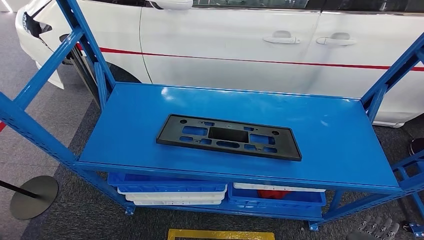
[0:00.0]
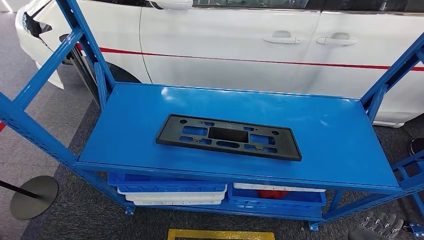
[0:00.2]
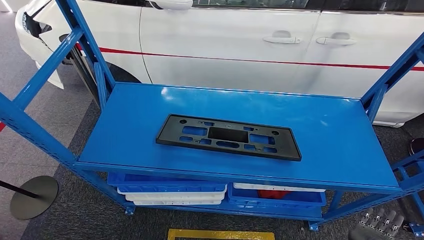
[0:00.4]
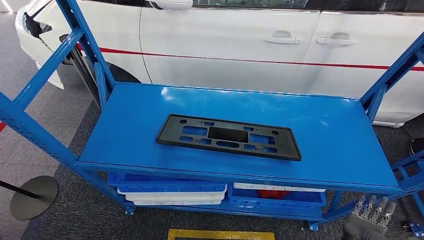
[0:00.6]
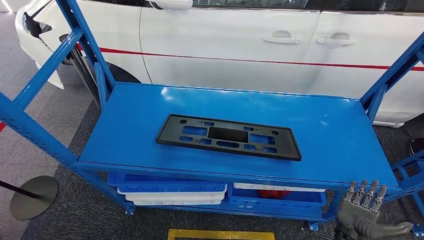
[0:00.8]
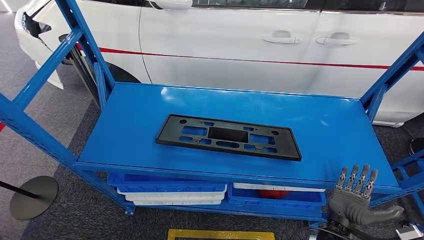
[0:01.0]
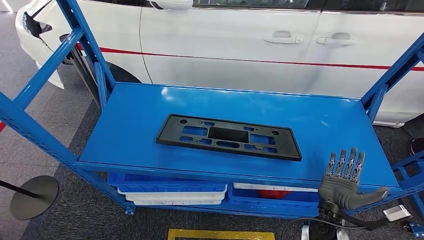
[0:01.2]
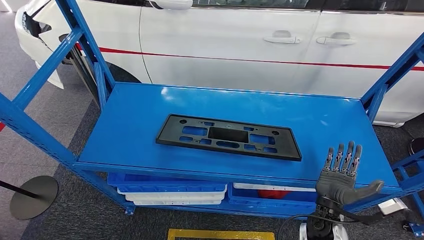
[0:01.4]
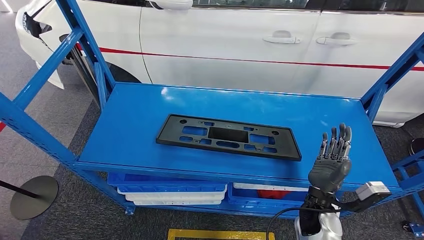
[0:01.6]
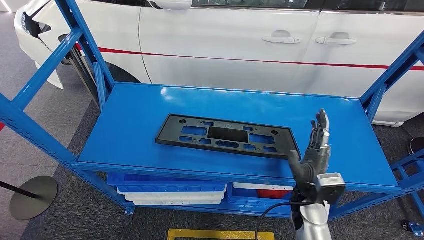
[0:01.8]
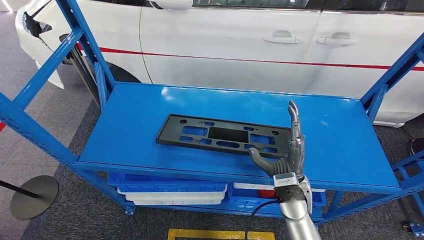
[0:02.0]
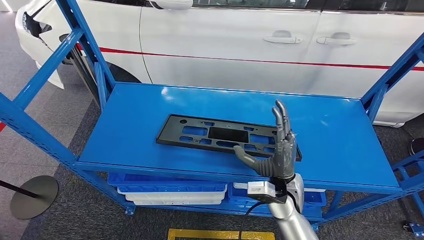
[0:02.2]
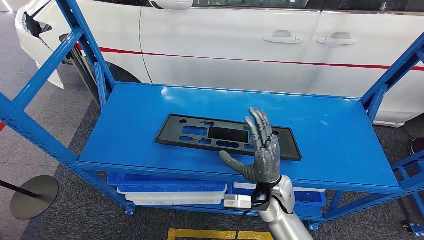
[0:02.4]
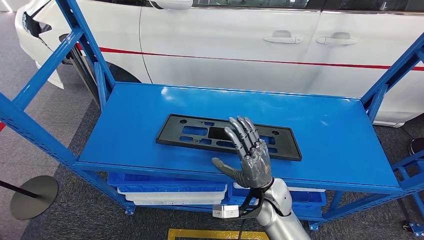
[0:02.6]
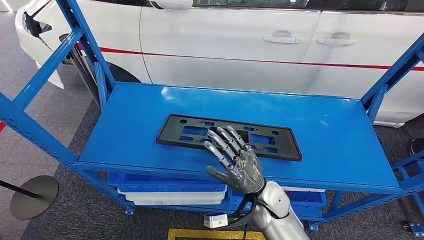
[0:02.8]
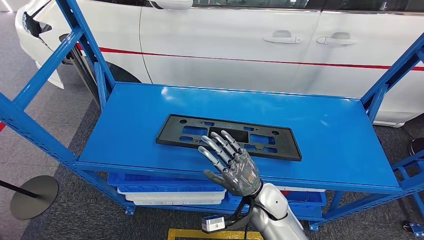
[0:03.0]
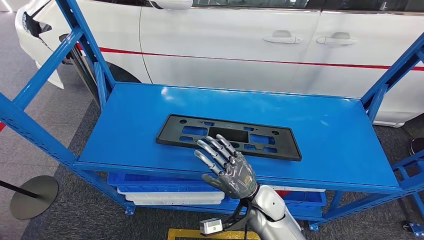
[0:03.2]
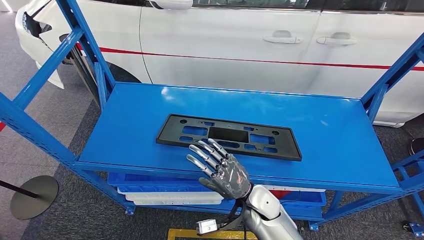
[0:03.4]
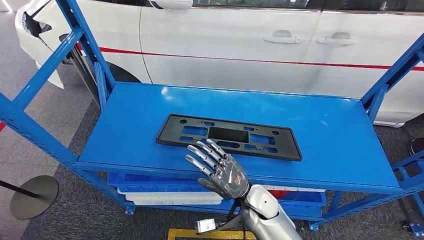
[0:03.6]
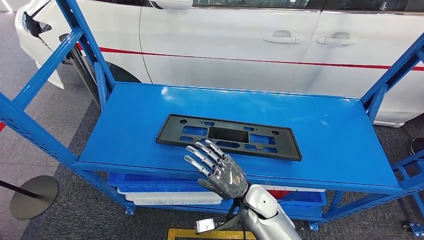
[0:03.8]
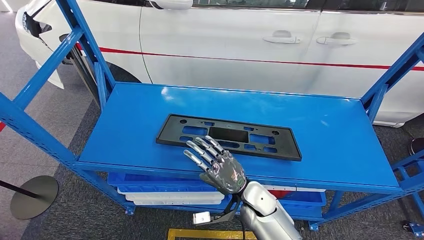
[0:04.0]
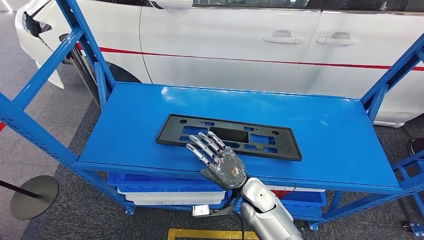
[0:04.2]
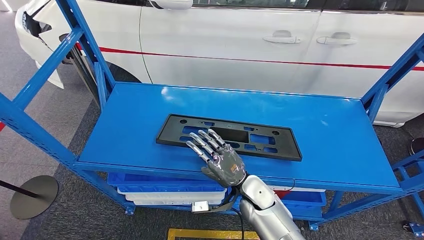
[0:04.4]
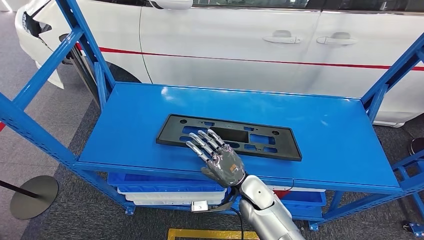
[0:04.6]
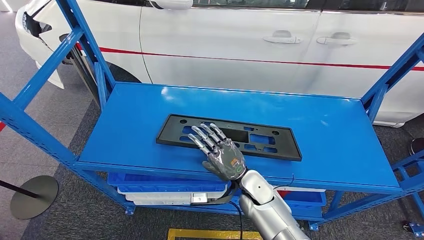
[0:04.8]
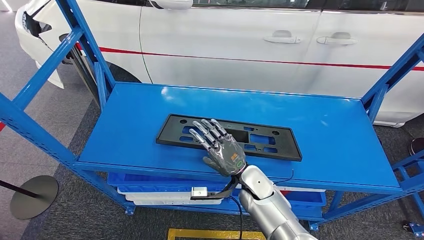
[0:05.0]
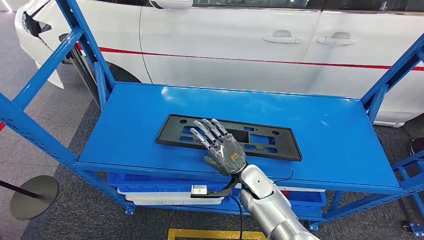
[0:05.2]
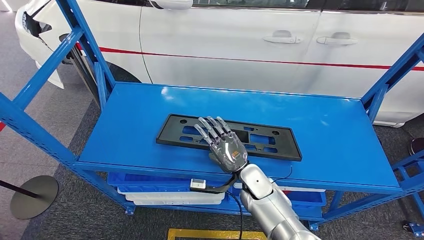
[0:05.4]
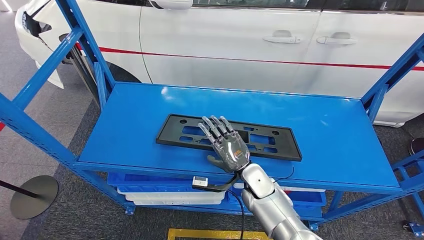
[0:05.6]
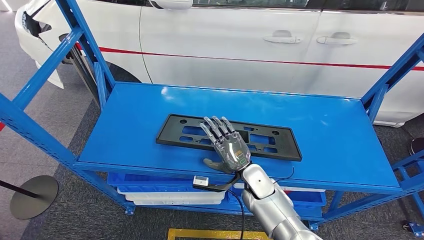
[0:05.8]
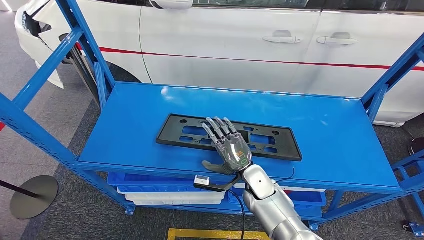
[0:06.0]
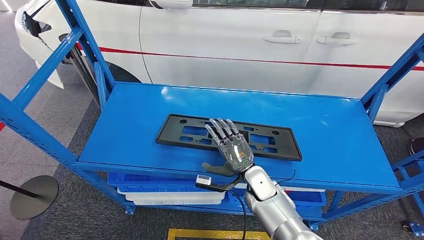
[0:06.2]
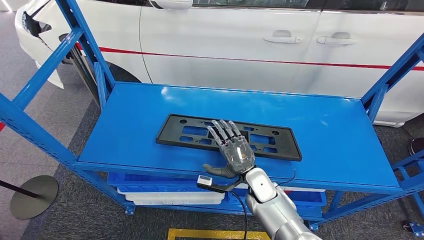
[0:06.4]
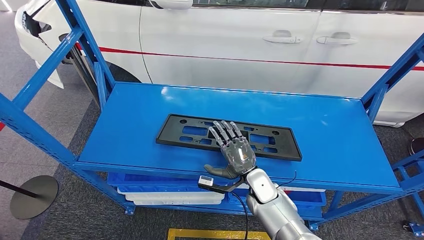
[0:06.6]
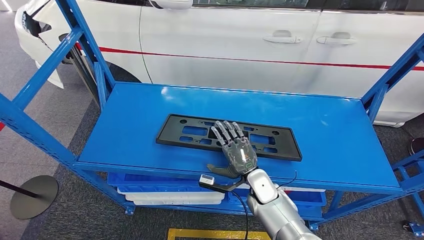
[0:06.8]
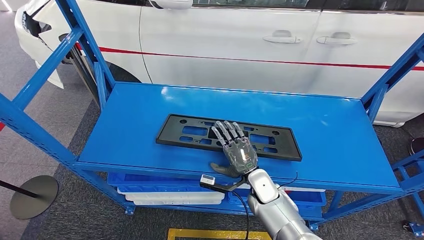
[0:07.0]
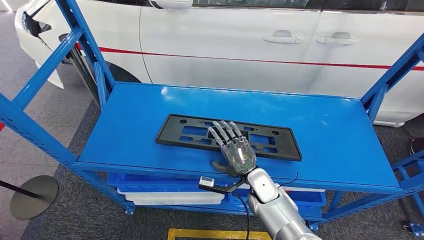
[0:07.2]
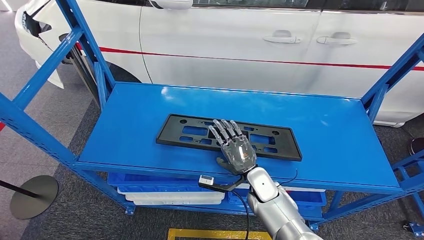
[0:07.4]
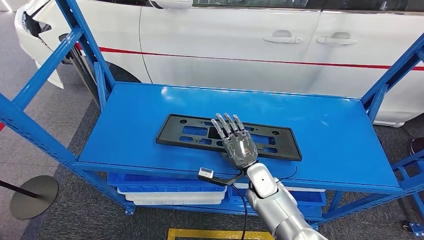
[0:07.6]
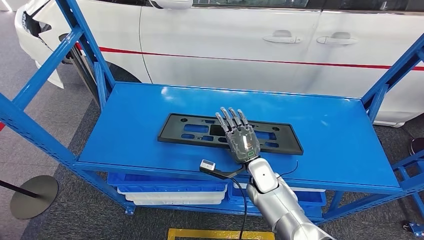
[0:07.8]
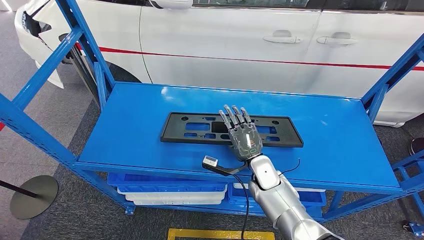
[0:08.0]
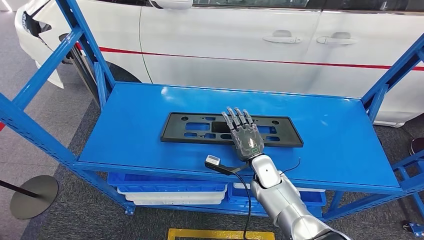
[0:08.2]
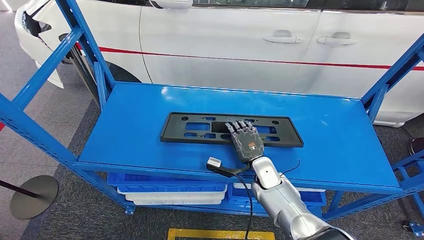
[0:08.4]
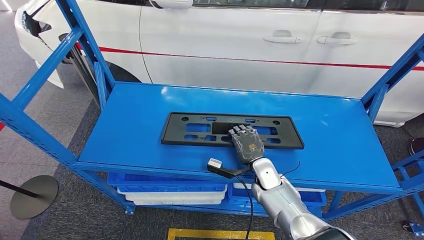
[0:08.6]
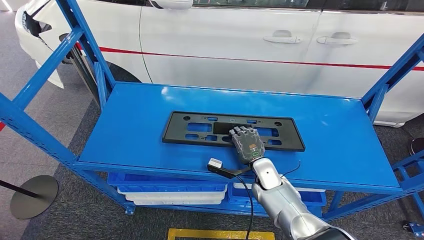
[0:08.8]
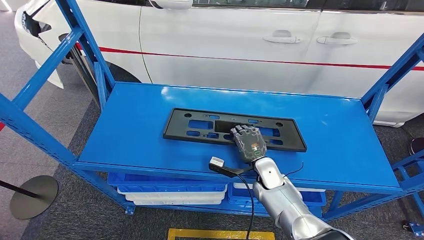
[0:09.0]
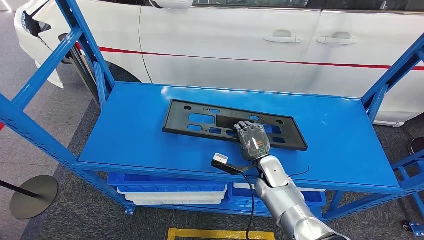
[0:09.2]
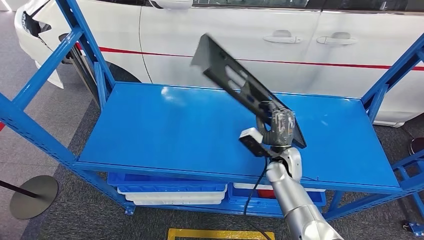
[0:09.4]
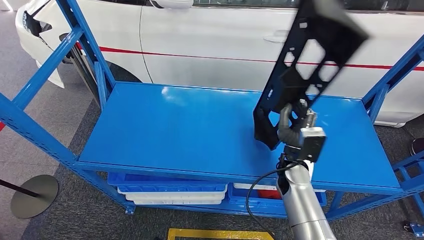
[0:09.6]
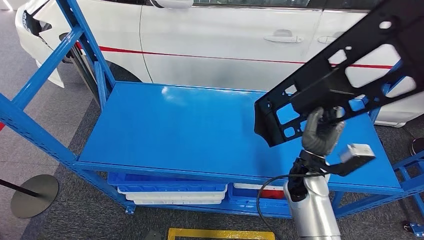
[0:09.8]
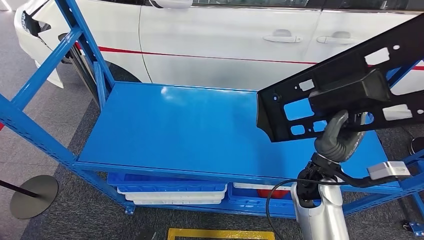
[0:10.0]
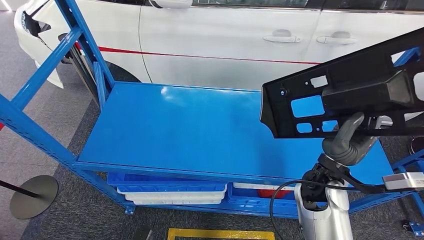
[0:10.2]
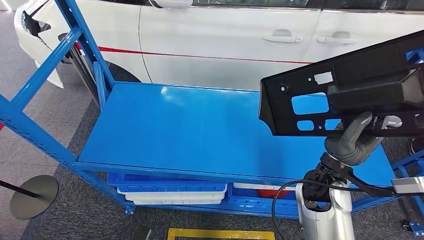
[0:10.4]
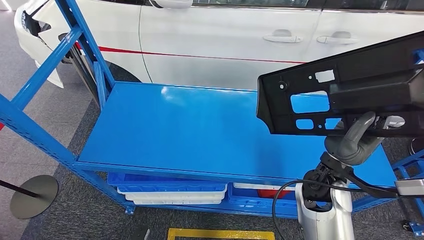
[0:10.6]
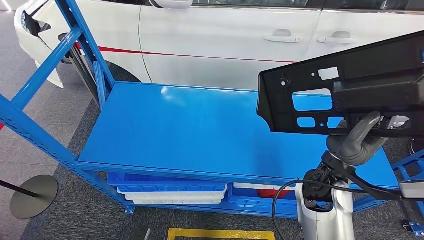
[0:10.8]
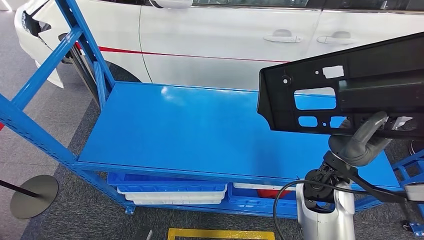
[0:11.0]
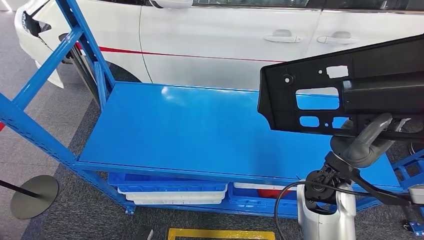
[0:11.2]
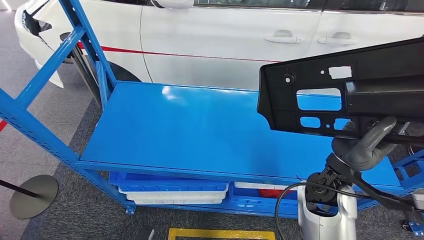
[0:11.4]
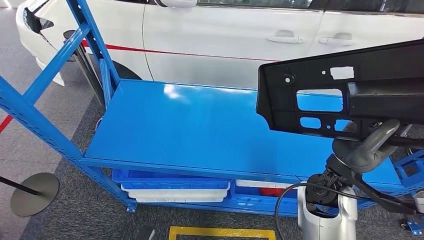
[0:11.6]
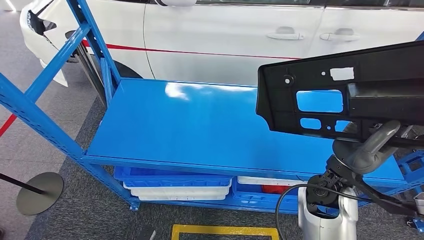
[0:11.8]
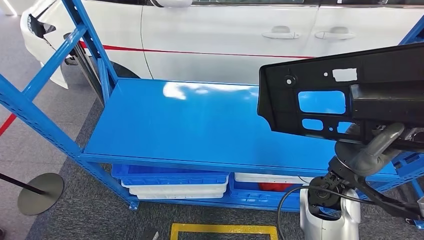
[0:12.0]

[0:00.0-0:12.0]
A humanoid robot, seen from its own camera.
Step, 0:00.0 to 0:09.8: Pick up the large material from the shelf.
0:00.0 to 0:01.6: The right hand is displaced upward, forward and to the left by about 20 cm.
0:01.6 to 0:03.0: The right hand heads to the left, covering approximately 10 cm.
0:03.0 to 0:04.4: The hands move only a little.
0:04.4 to 0:06.0: The hands make only small movements.
0:06.0 to 0:09.0: The hands move only a little.

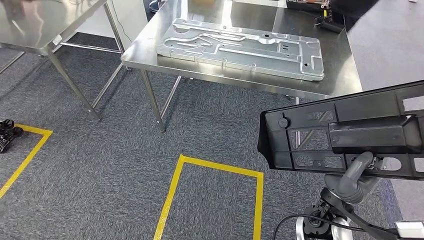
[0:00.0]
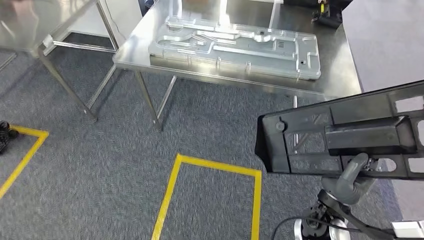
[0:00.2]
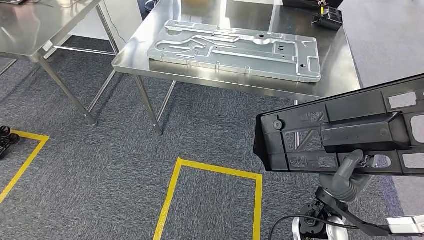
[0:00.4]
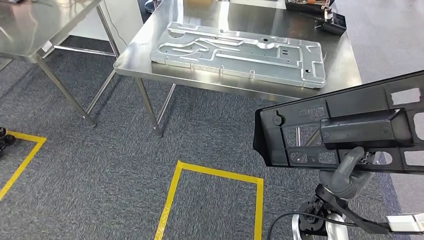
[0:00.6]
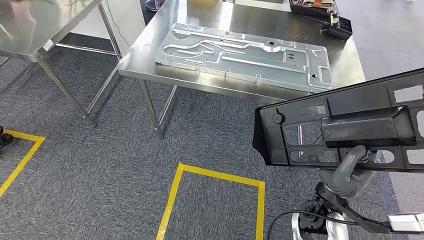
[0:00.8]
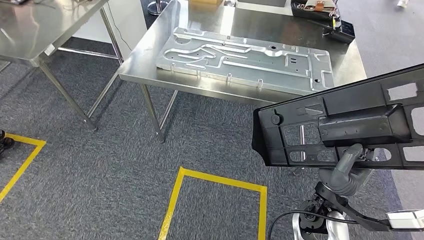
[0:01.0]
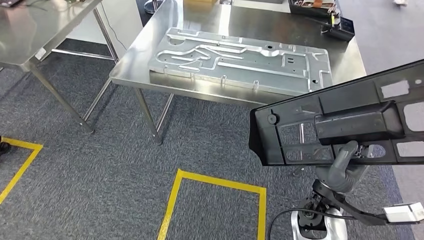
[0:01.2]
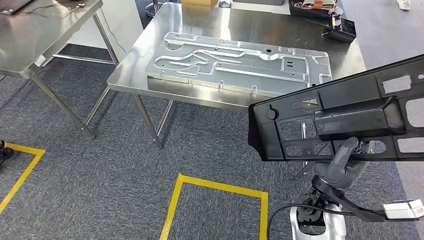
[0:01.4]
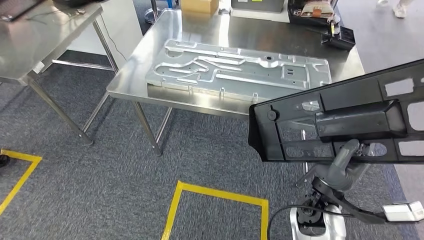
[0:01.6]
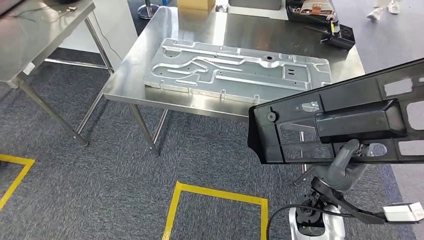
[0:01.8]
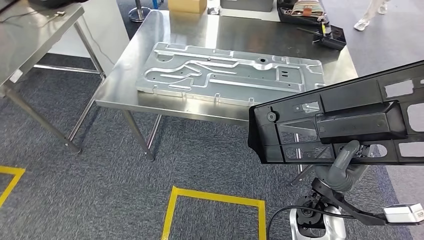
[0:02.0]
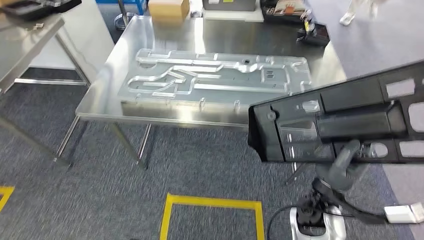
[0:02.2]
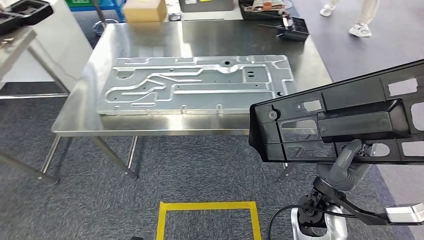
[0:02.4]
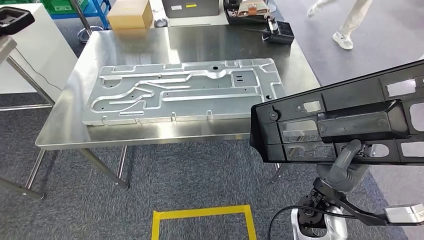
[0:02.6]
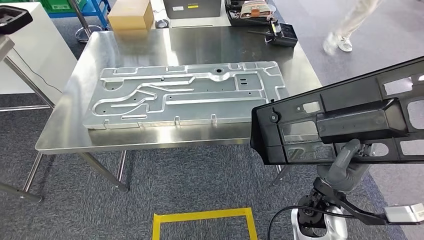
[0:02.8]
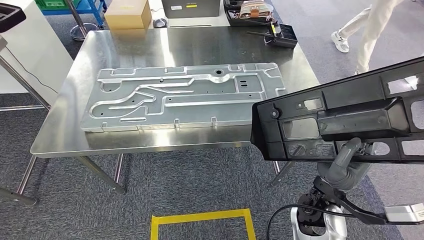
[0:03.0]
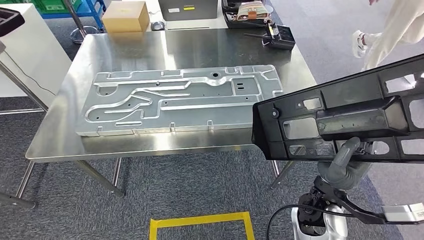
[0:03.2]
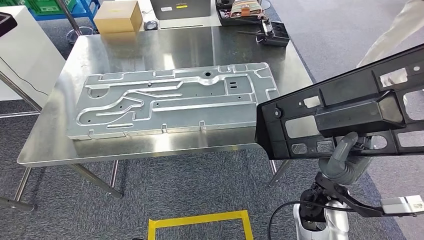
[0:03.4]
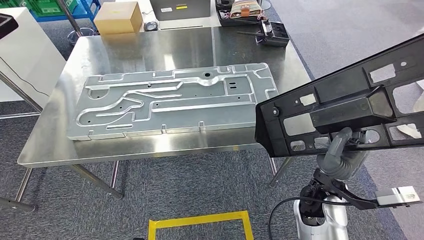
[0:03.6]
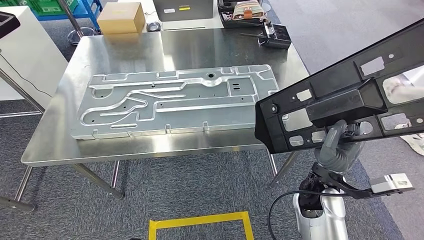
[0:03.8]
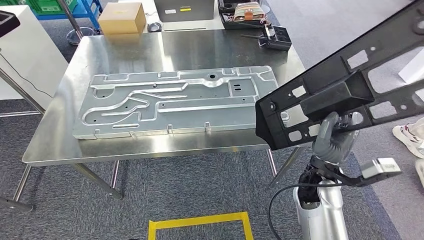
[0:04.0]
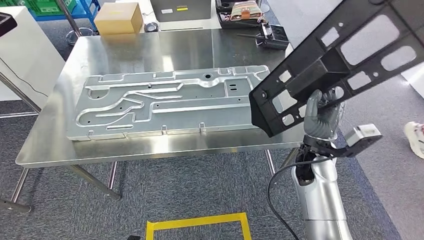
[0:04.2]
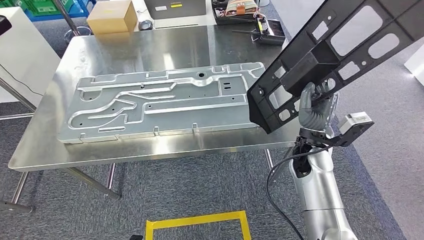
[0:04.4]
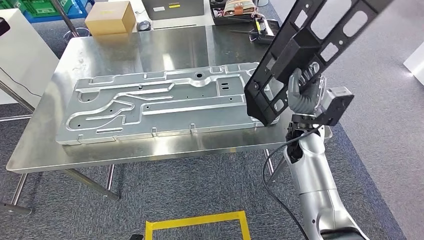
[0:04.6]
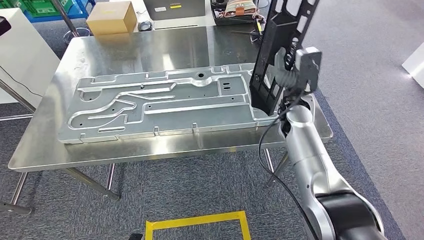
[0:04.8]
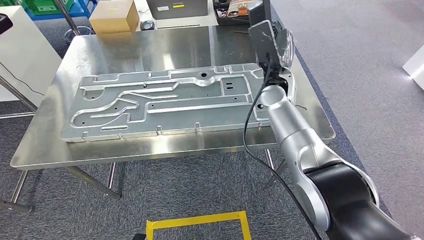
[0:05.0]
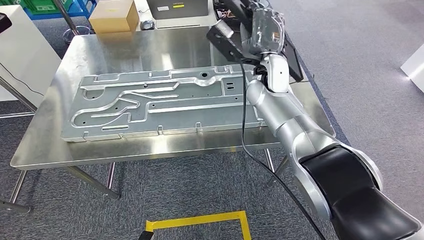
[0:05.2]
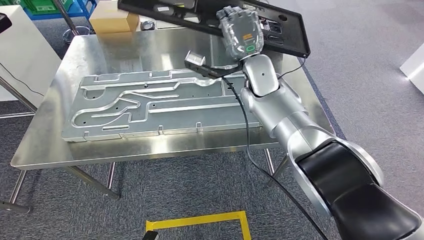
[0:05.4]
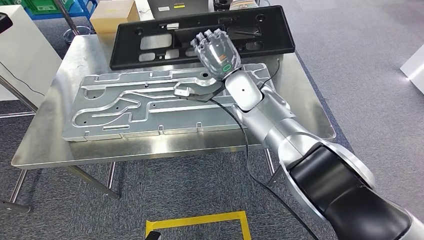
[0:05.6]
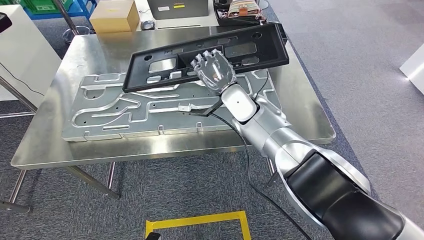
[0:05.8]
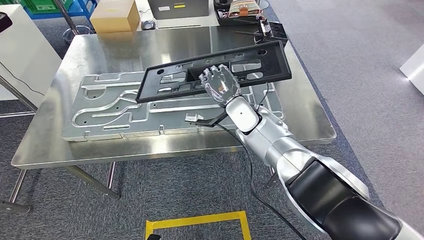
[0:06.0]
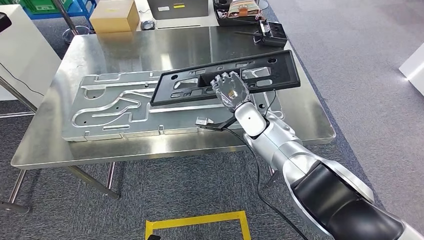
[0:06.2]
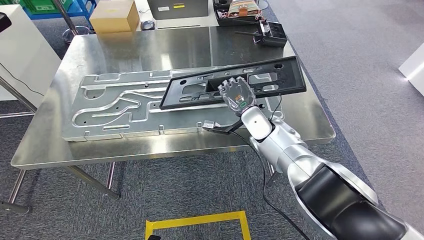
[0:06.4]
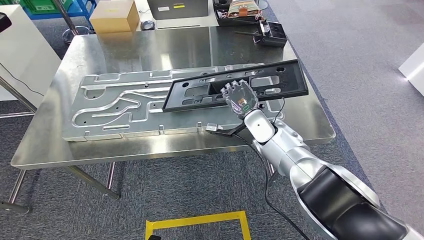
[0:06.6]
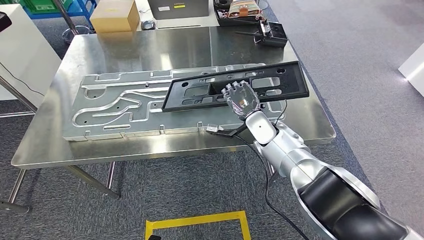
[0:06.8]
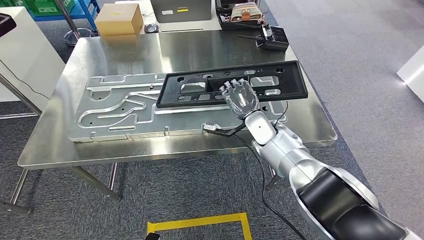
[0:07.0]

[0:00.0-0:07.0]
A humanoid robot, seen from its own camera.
Step, 0:00.0 to 0:02.8: Move the large material to the workbench.
